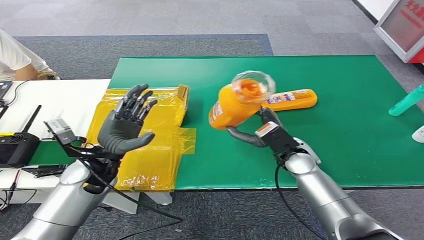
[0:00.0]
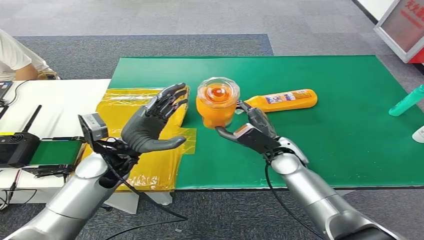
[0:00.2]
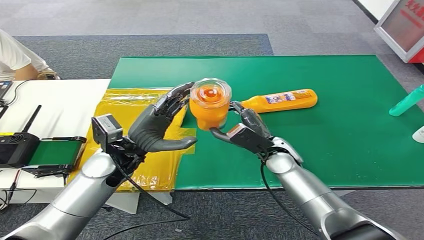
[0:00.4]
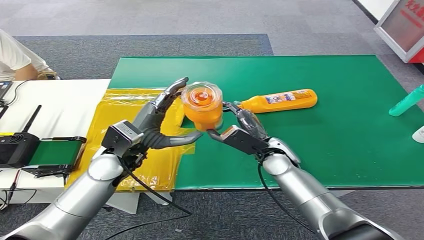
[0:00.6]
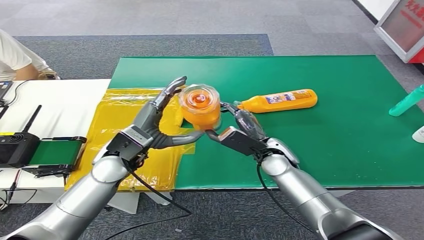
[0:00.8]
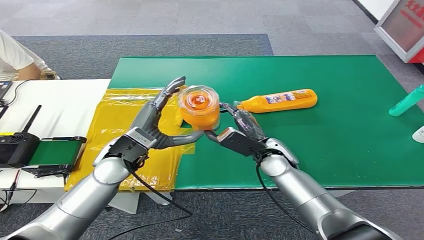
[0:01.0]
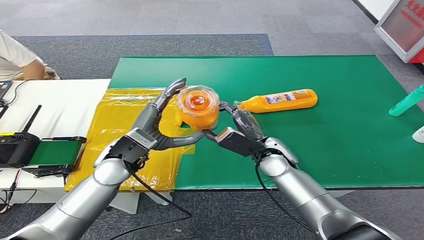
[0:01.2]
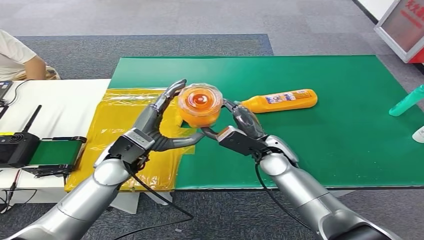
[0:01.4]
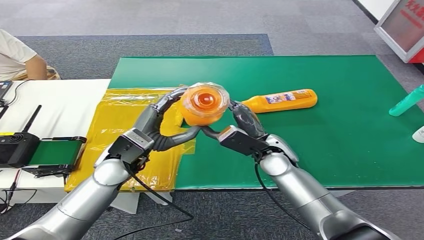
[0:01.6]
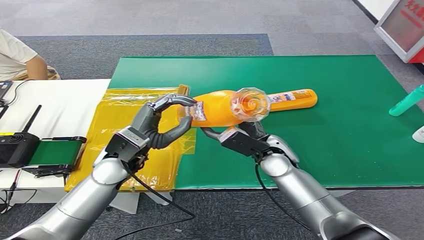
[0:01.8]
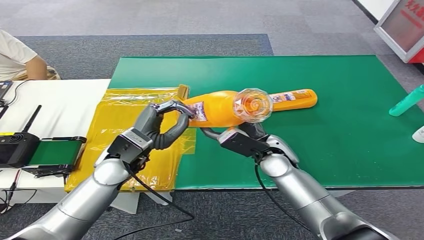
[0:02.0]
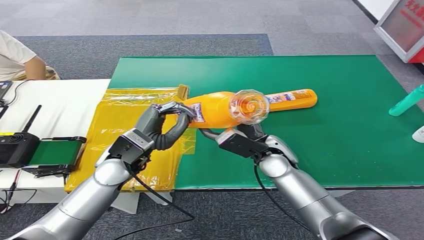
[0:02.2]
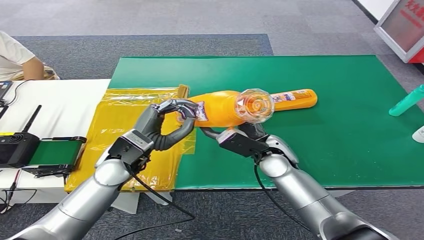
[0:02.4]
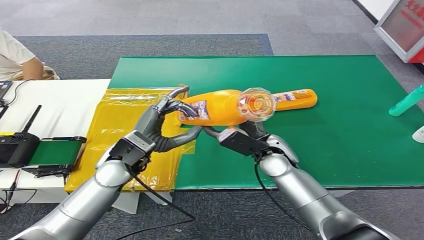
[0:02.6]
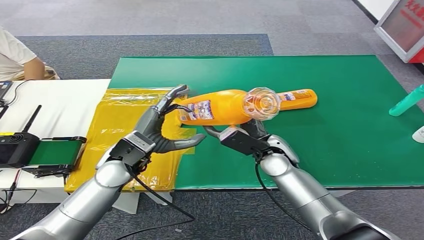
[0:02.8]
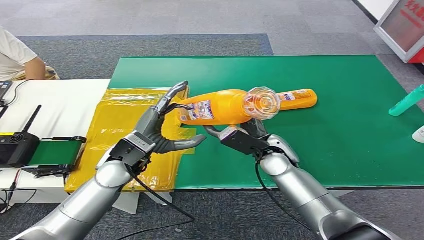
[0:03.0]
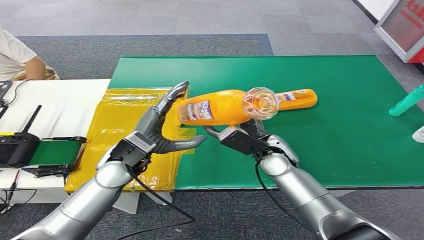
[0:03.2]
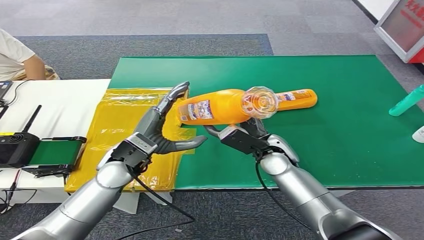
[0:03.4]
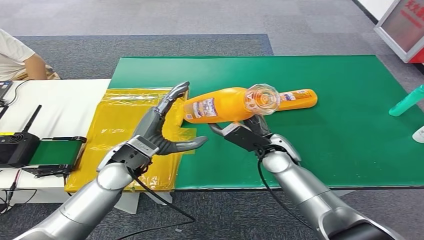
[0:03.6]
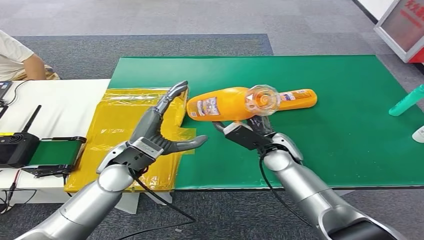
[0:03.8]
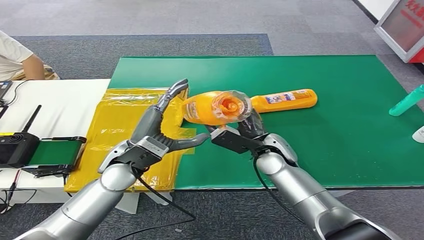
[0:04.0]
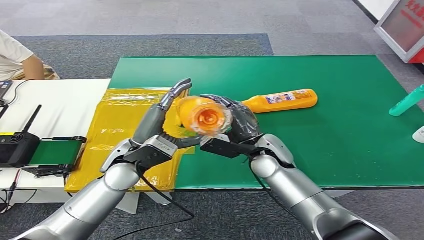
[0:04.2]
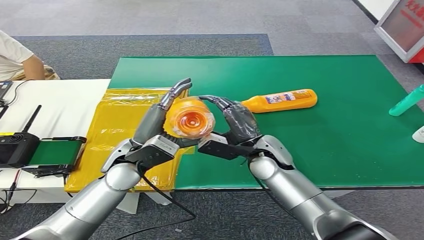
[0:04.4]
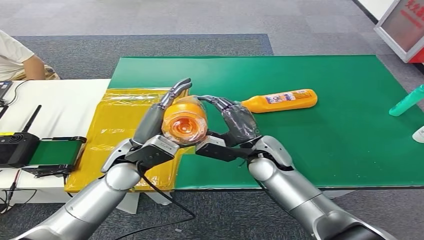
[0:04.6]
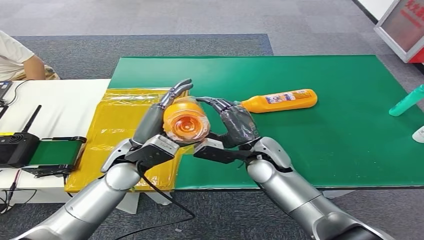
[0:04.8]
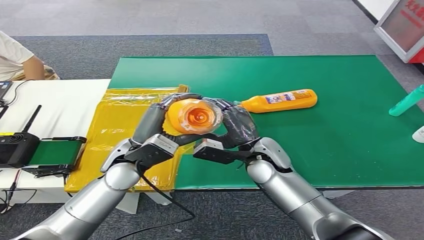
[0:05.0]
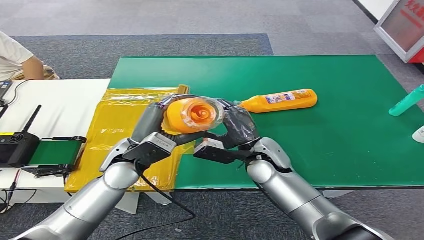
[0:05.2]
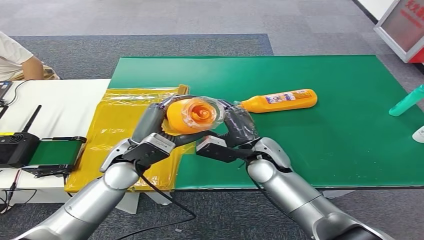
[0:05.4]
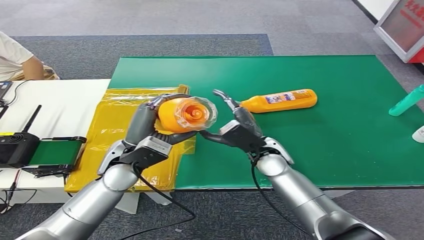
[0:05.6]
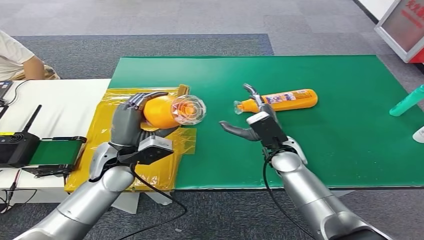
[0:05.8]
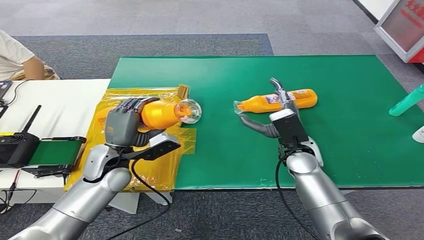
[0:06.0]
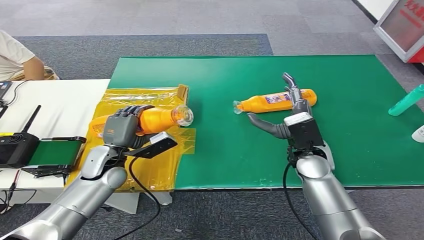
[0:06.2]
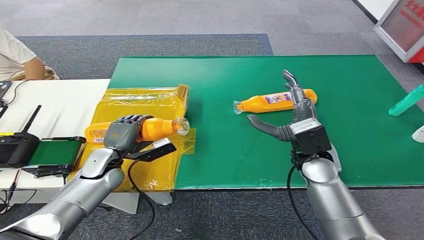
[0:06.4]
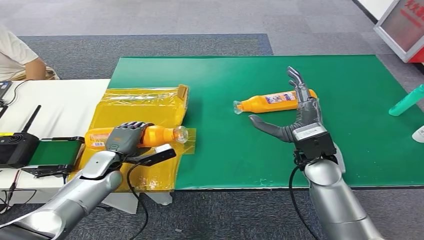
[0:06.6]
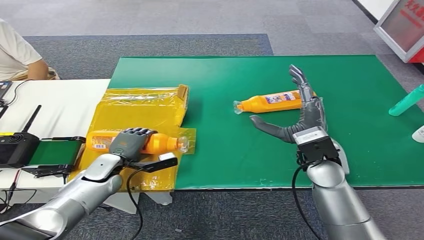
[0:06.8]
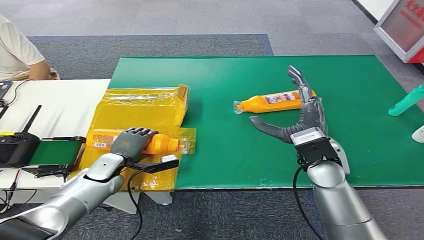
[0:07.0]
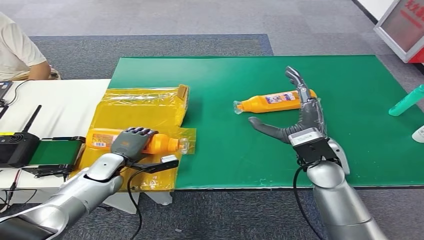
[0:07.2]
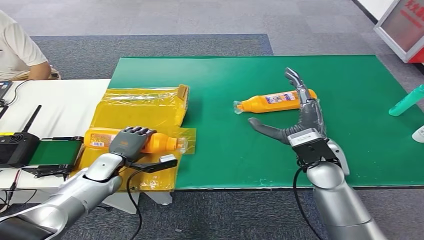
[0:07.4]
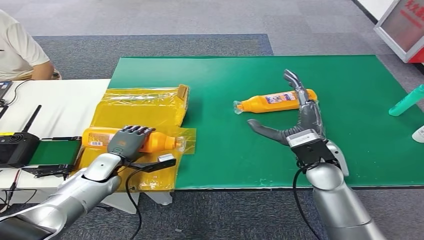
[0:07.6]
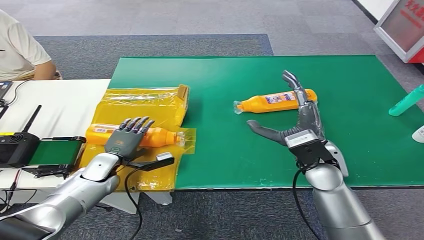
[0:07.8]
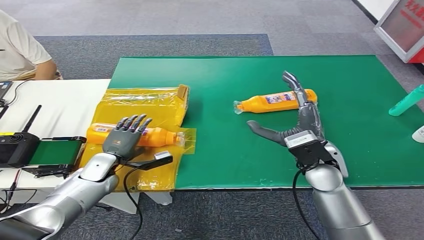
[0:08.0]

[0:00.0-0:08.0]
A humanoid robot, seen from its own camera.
Step, 0:00.2 to 0:08.0: Turn the bottle to the front side.
0:01.6 to 0:03.2: Both hands stay put.
0:03.2 to 0:04.8: The hands make only small movements.

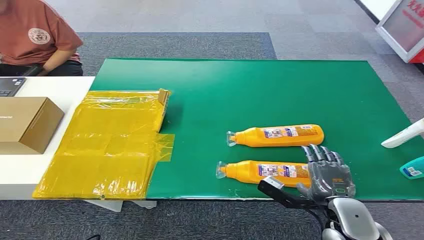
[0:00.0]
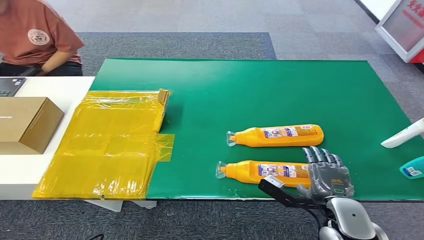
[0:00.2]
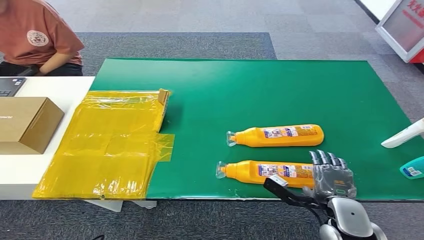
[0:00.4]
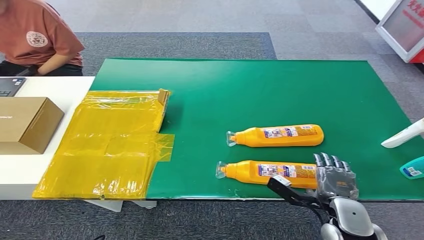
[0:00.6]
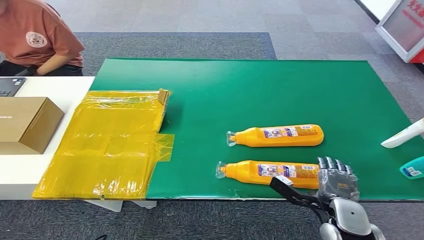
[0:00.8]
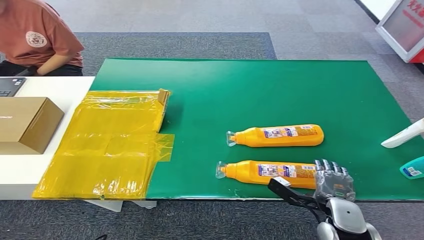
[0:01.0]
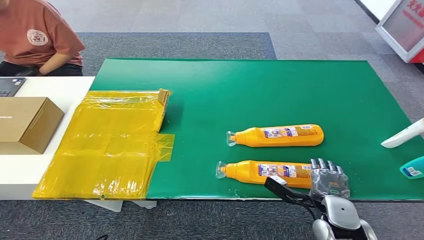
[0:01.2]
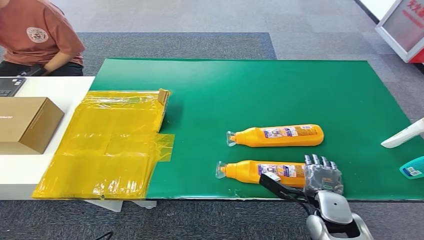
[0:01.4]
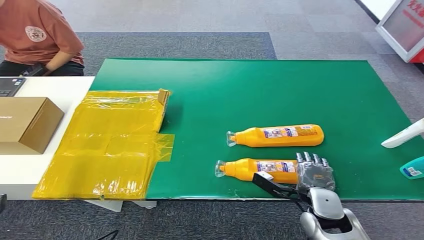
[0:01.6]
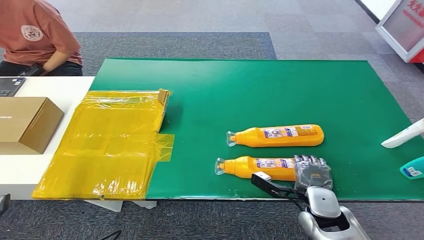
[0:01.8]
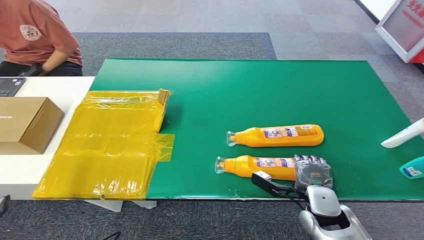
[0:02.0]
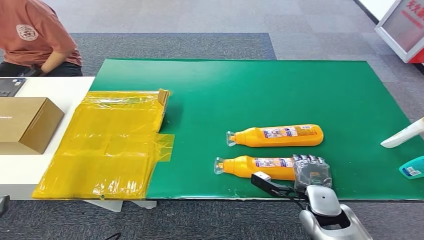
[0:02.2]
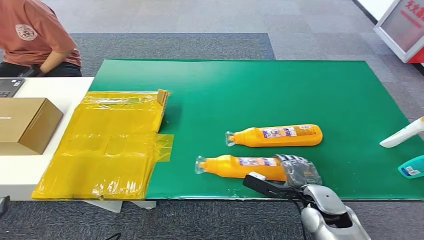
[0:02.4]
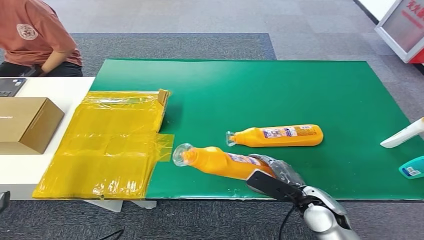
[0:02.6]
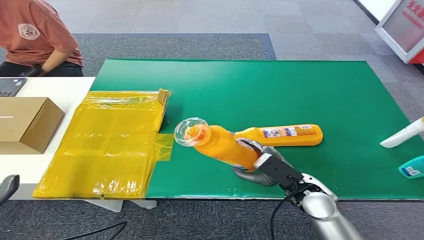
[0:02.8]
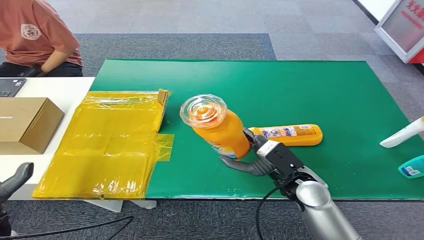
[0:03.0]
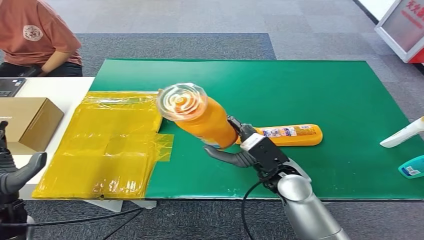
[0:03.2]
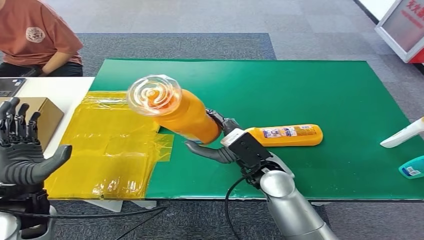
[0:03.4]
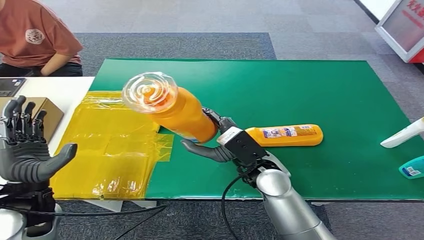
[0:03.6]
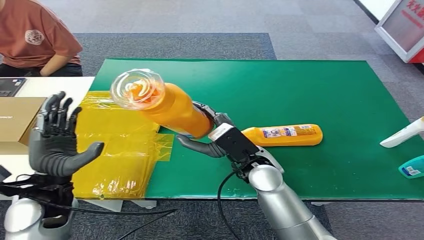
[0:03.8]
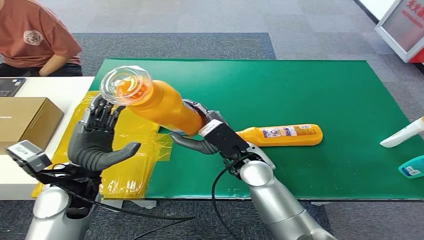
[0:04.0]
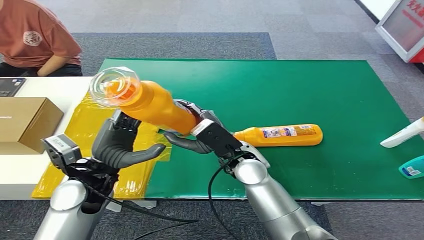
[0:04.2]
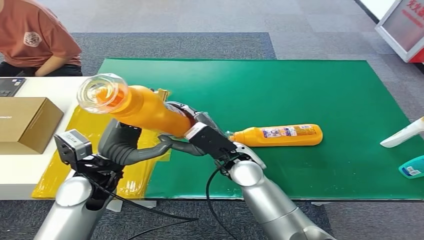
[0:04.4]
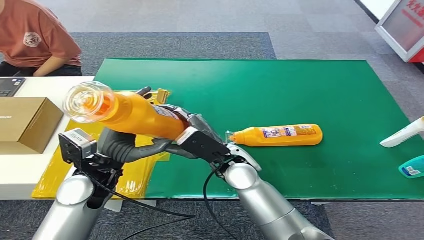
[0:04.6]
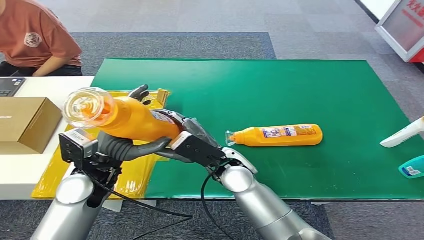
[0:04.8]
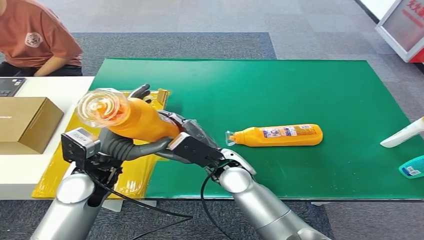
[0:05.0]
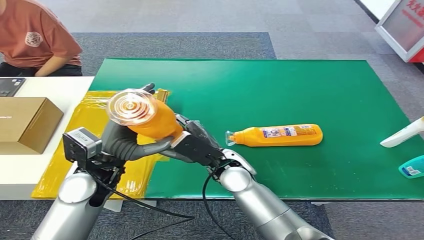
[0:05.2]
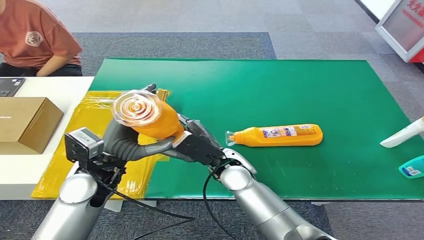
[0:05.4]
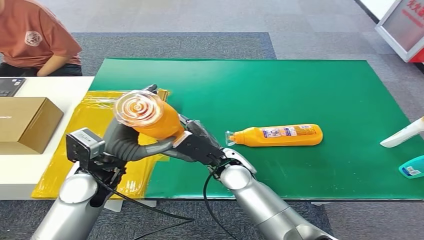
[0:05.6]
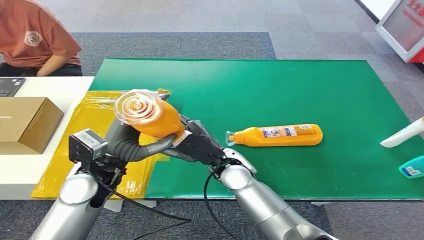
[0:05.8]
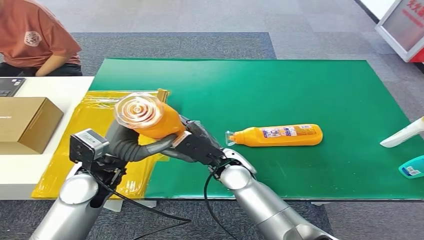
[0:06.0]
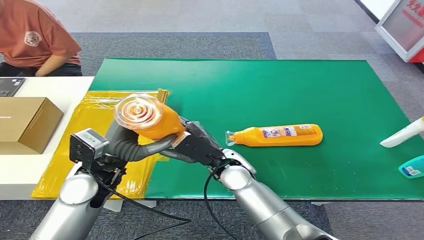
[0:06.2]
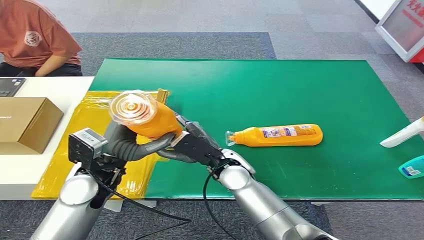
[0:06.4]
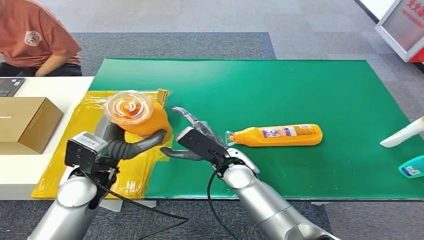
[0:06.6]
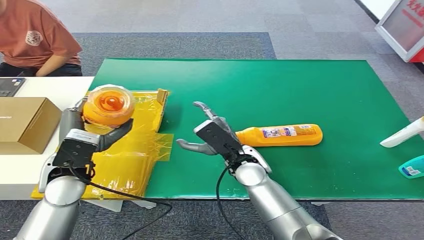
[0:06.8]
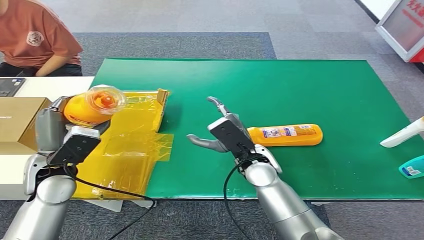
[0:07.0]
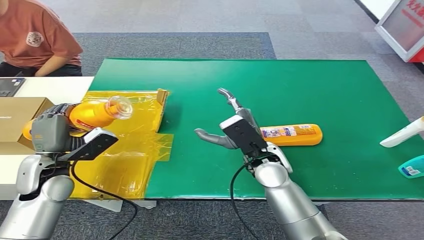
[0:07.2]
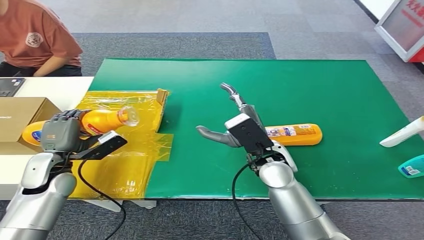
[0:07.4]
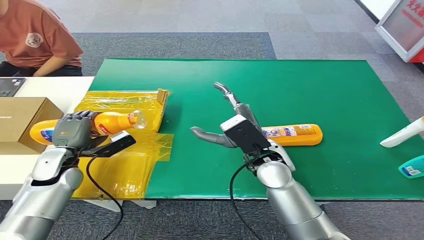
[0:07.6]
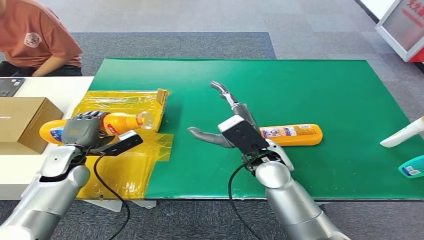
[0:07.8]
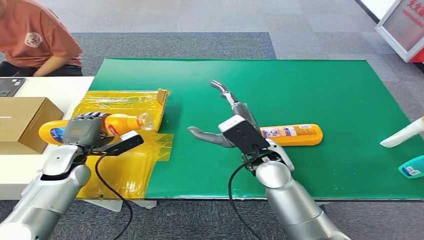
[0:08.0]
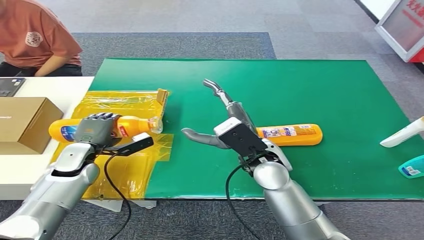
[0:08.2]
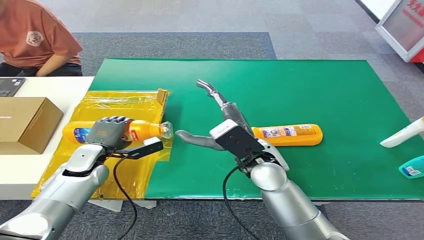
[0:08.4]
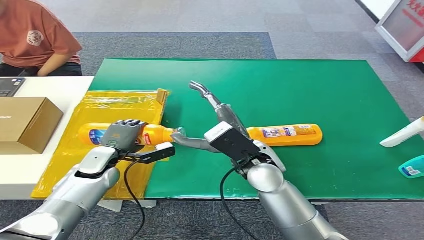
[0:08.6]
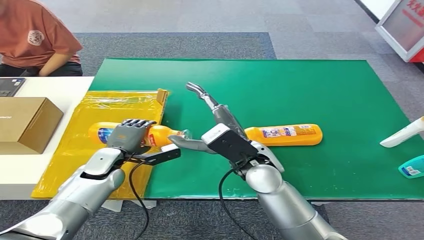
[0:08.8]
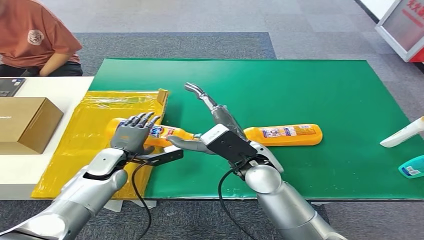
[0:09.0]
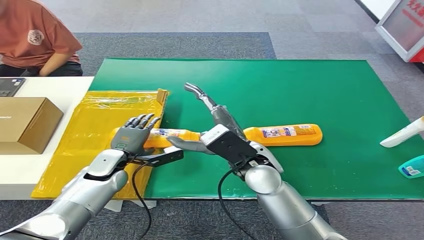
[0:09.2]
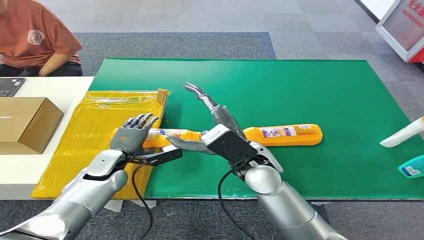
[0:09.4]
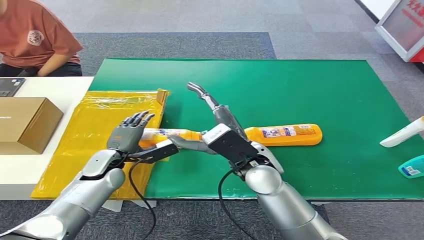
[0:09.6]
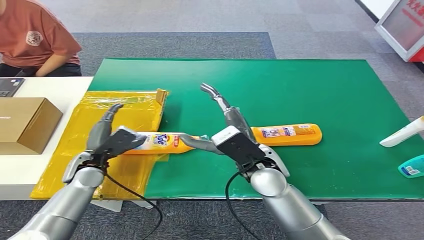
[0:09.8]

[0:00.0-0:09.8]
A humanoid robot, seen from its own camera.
Step, 0:00.0 to 0:03.4: Pick up the bottle from the table.
Step, 0:03.6 to 0:09.8: Turn the bottle to the front side.
0:01.4 to 0:02.8: The right hand changes place by about 5 cm, while the left hand is displaced forward by about 5 cm.
0:04.2 to 0:05.6: The hands move only a little.
0:07.0 to 0:08.4: The right hand goes about 5 cm upward, while the left hand goes some 10 cm downward and forward.
